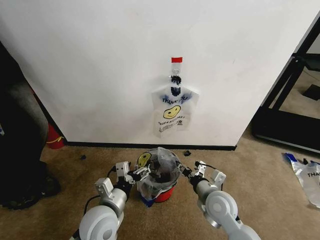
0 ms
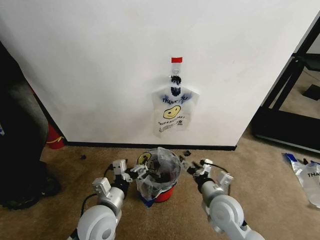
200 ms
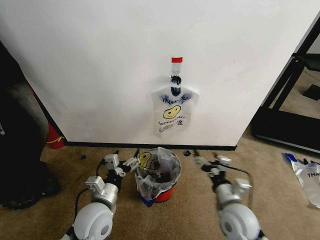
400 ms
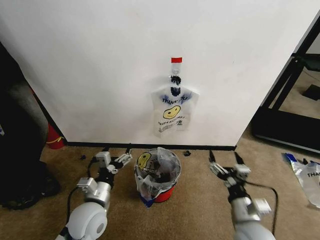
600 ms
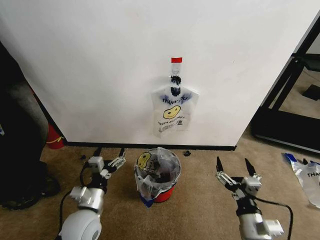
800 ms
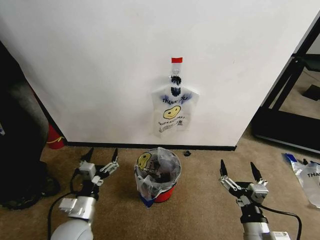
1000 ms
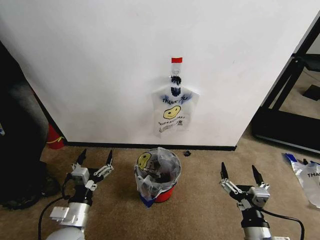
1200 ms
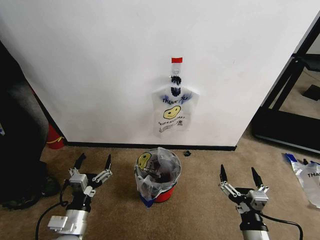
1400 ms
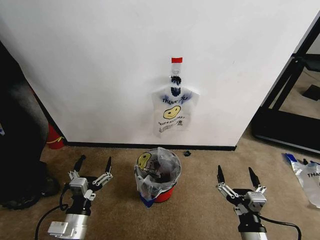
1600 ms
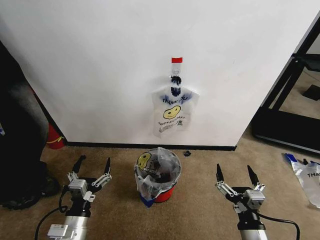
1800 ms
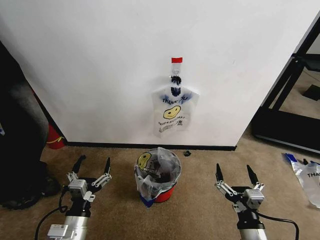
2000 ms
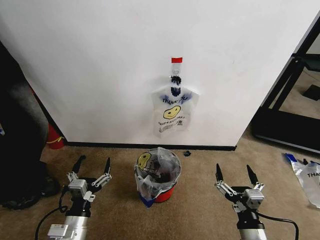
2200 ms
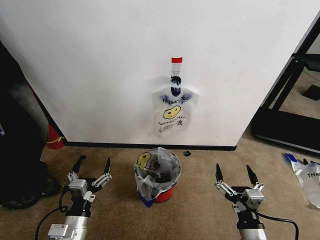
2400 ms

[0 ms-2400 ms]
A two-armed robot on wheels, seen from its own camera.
Task of the whole recording: Pick up the garbage bag from the wall and place it over the trash bin.
0 ms to 1200 ms: The left gripper shifts approximately 10 cm to the left. The right gripper travels backward by approximately 15 cm, and opens.
1200 ms to 2400 ms: The grippers make only small movements.

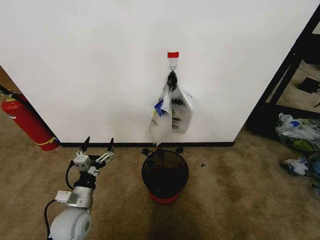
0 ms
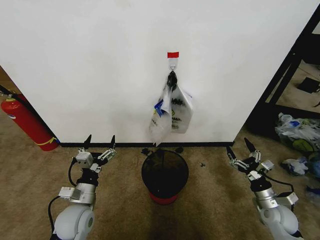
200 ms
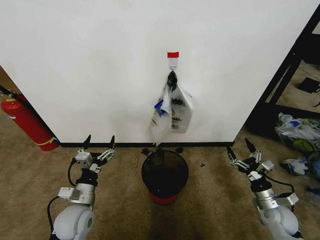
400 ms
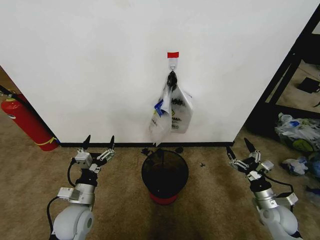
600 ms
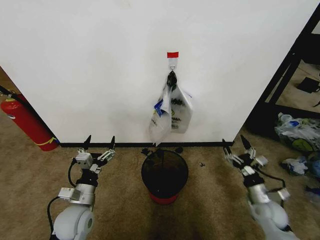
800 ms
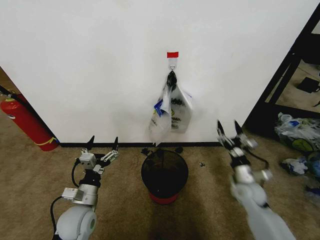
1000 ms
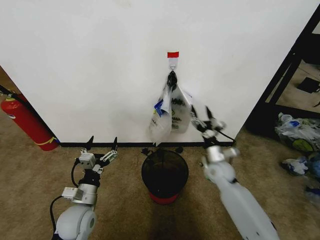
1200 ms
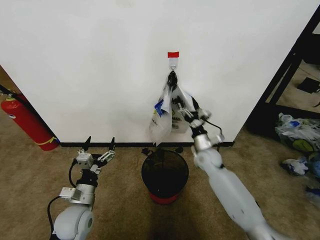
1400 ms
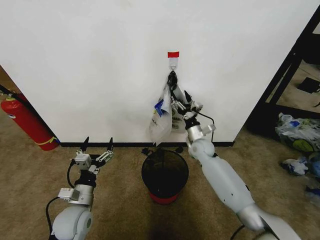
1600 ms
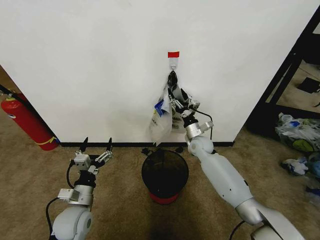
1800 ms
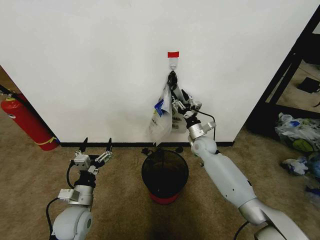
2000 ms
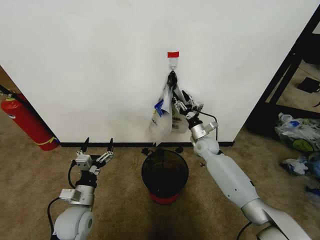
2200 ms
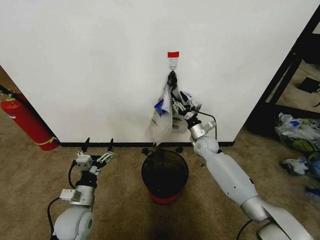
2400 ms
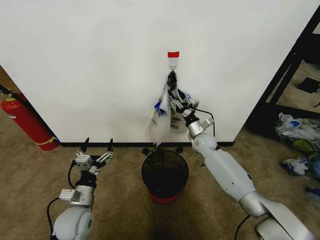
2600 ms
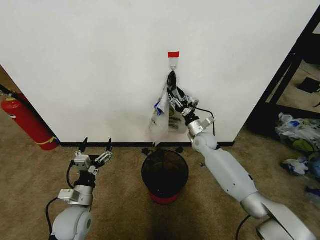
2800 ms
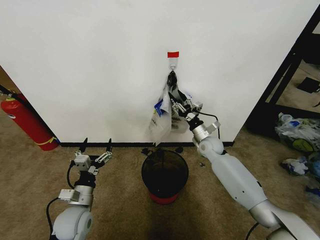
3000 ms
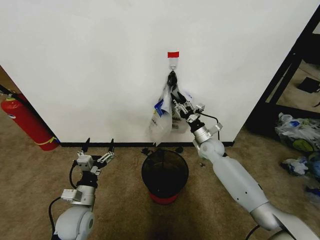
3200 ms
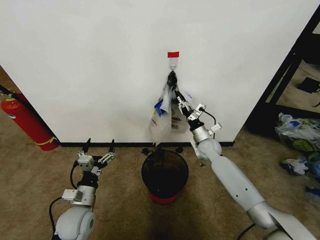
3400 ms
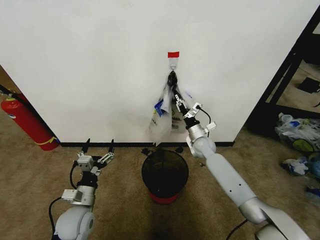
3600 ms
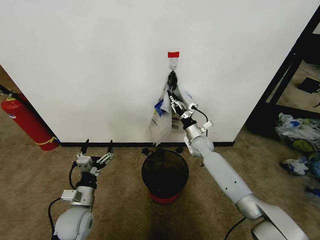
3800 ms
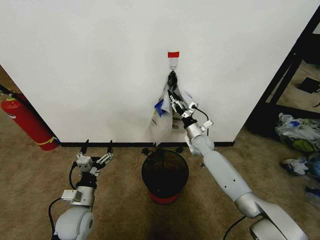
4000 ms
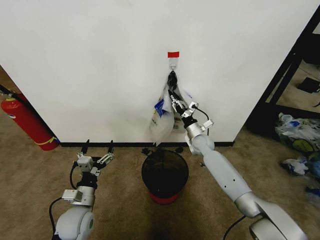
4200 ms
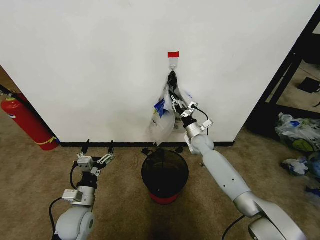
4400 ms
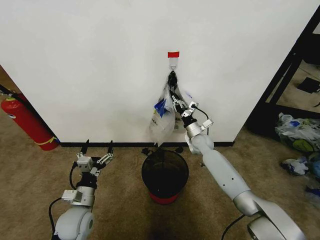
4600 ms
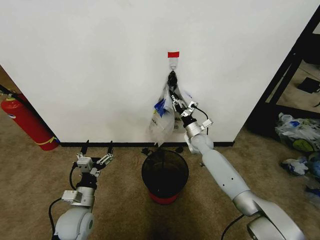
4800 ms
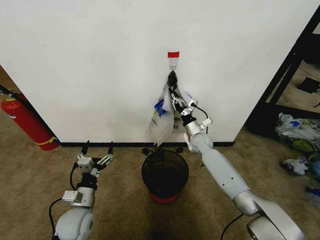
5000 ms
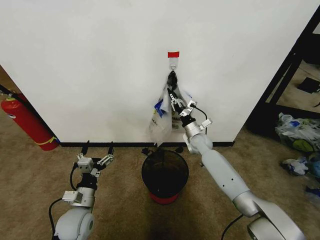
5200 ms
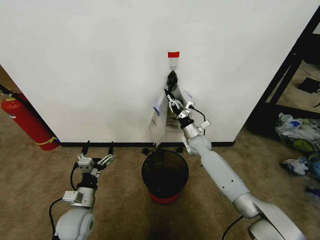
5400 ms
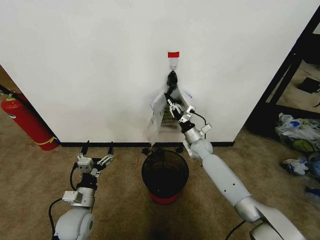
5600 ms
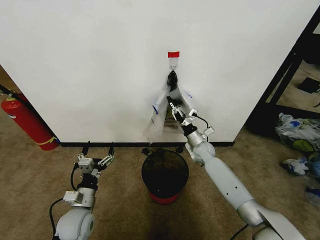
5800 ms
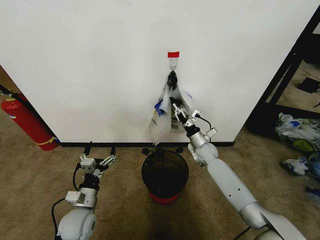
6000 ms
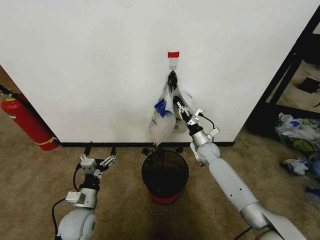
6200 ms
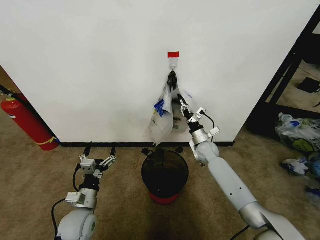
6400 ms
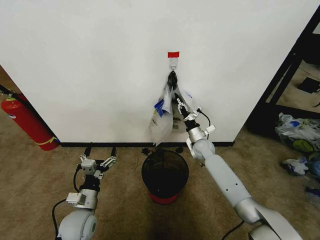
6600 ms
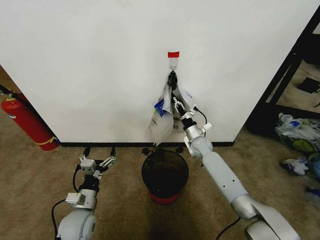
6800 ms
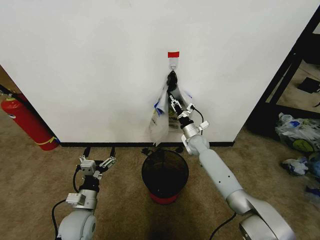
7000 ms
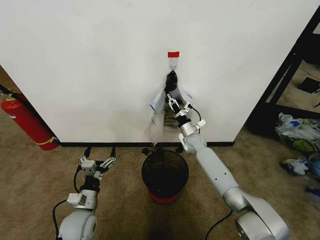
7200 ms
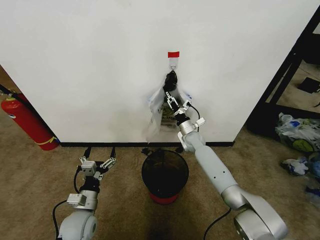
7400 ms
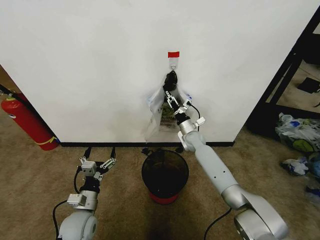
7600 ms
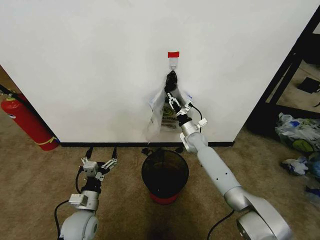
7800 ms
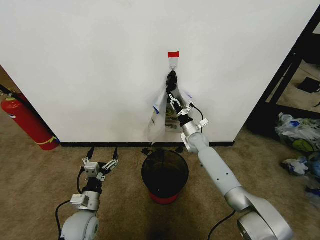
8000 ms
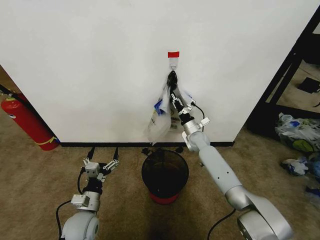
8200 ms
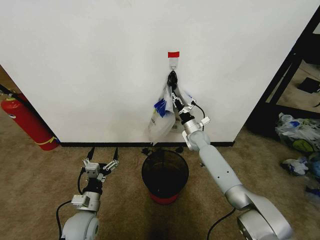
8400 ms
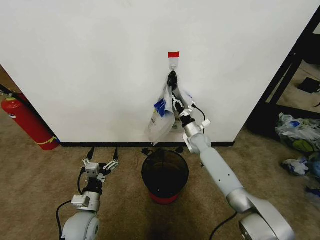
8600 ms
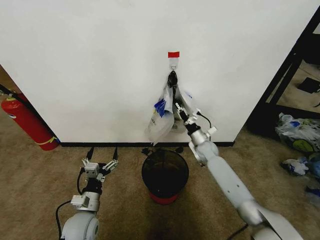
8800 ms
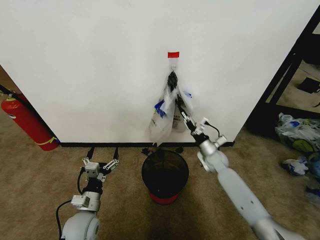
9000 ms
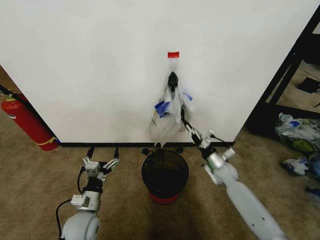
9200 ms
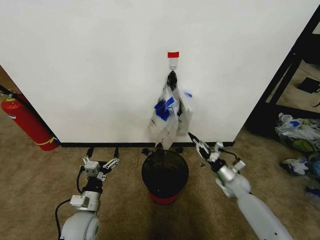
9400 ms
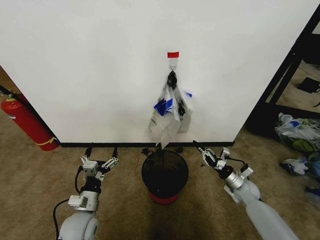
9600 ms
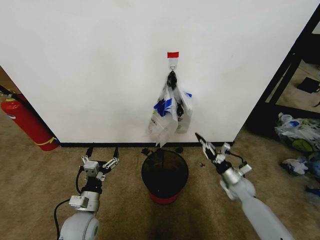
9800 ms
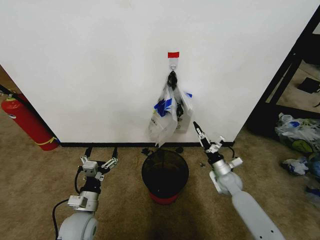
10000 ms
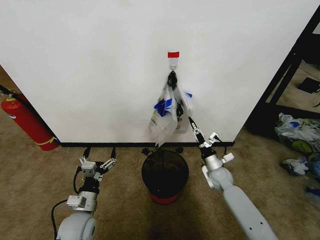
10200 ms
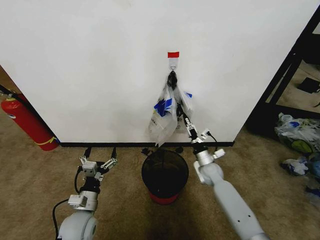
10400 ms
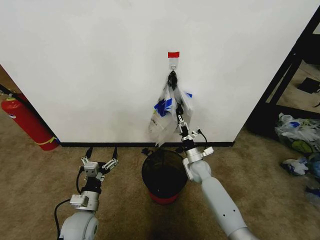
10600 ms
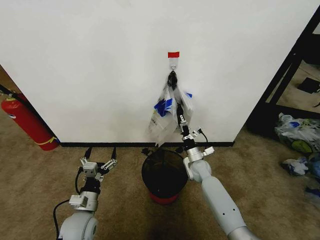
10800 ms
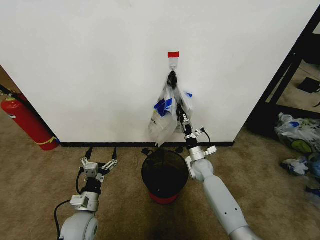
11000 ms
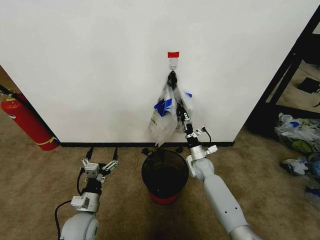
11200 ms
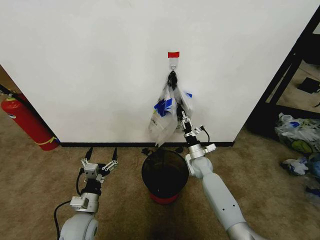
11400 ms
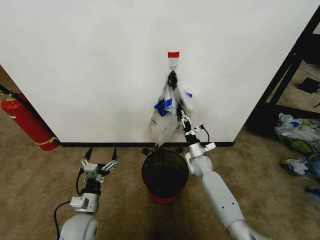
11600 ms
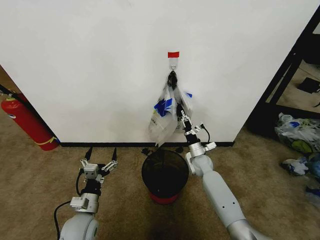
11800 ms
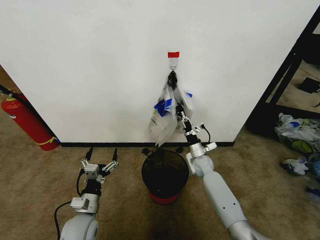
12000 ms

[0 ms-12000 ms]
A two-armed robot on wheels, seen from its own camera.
Task of the whole recording: Pick up the garbage bag from the wall and place it over the trash bin.
1600 ms to 3000 ms: There are only small adjustments of the grippers.
3000 ms to 4400 ms: The right gripper closes its fingers.
4400 ms to 6000 ms: The grippers move only a little.
6000 ms to 7600 ms: The right gripper moves about 5 cm.
7600 ms to 9000 ms: The right gripper goes approximately 10 cm to the right and backward, and closes.
9000 ms to 10400 ms: The right gripper reaches roughly 10 cm to the right, then returns, and opens up.
10400 ms to 12000 ms: The right gripper ends up approximately 5 cm from where it was, and closes.

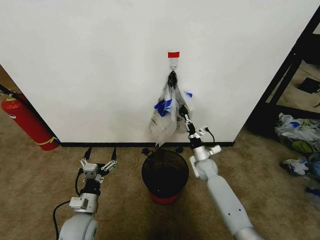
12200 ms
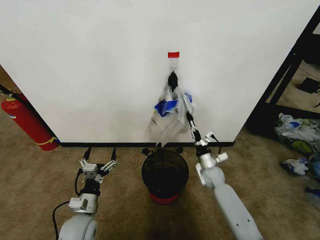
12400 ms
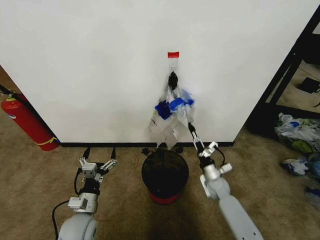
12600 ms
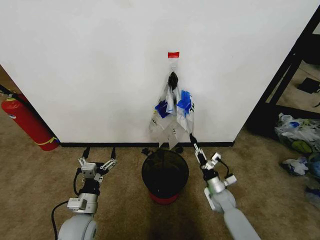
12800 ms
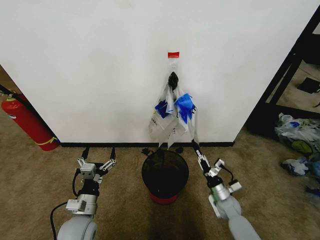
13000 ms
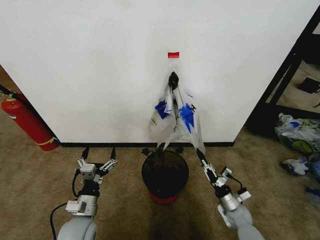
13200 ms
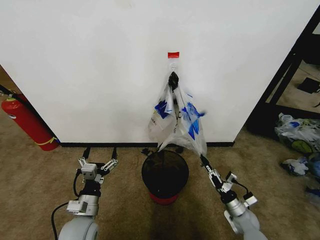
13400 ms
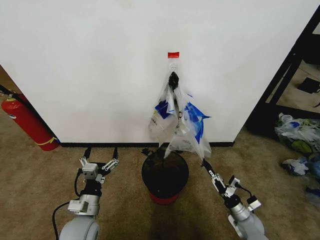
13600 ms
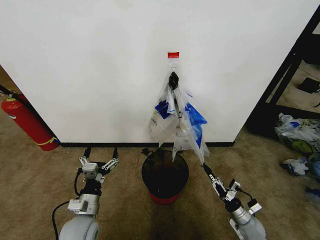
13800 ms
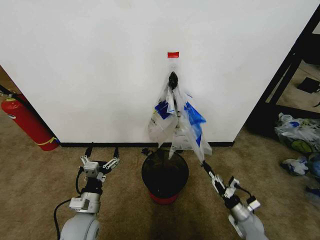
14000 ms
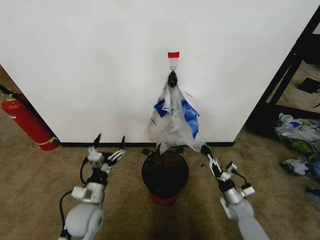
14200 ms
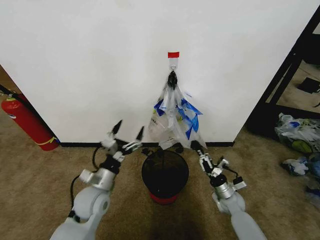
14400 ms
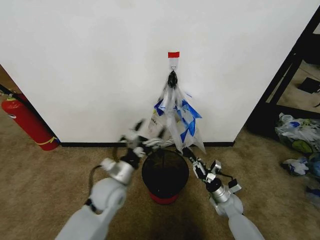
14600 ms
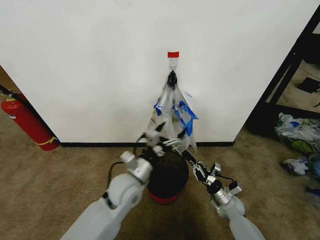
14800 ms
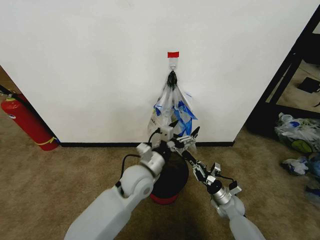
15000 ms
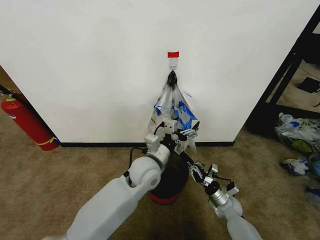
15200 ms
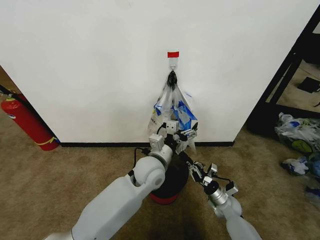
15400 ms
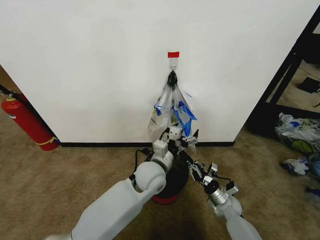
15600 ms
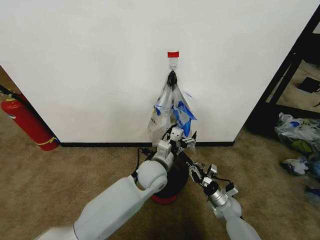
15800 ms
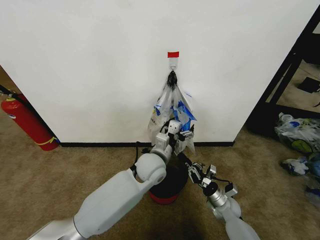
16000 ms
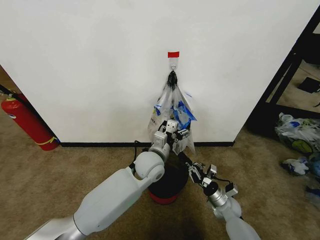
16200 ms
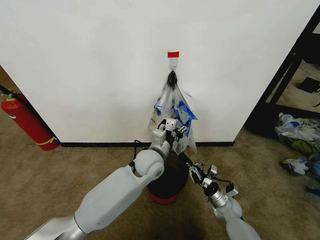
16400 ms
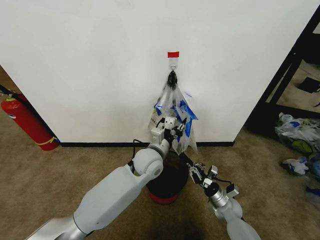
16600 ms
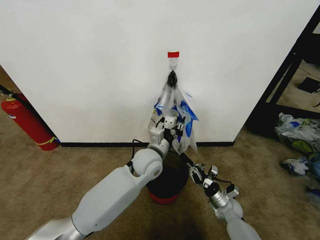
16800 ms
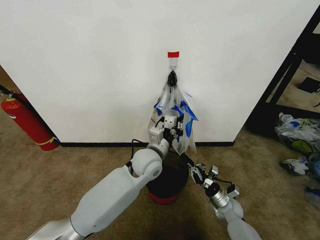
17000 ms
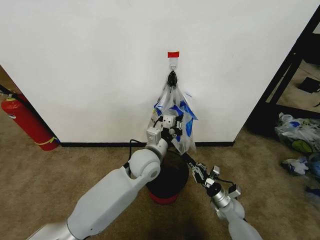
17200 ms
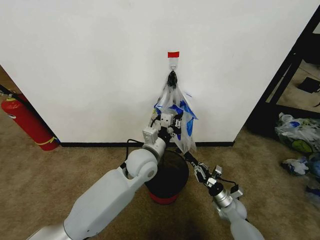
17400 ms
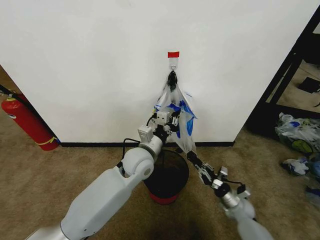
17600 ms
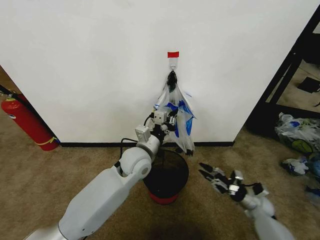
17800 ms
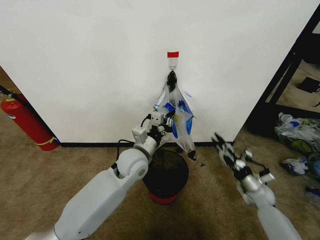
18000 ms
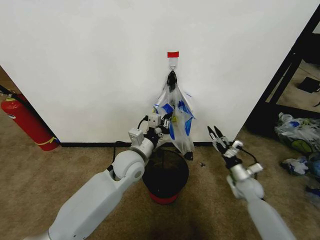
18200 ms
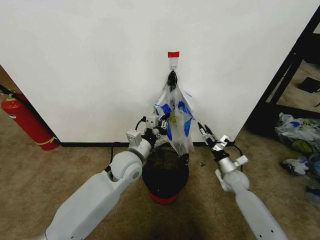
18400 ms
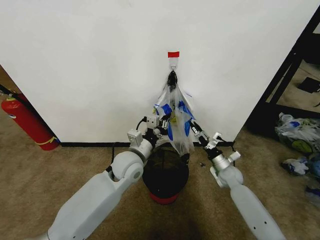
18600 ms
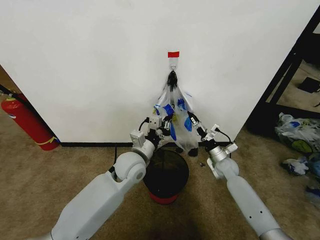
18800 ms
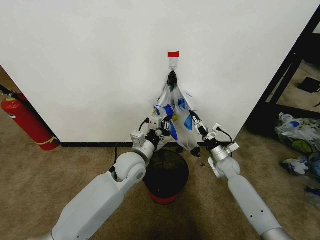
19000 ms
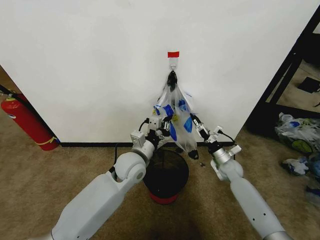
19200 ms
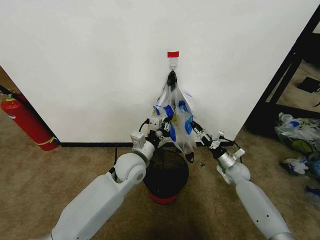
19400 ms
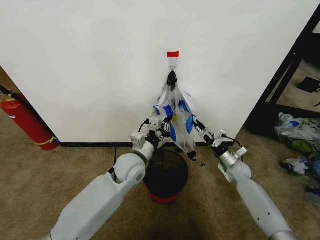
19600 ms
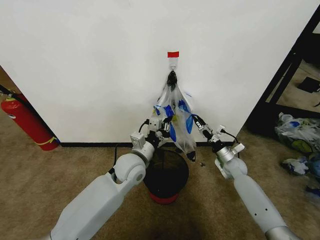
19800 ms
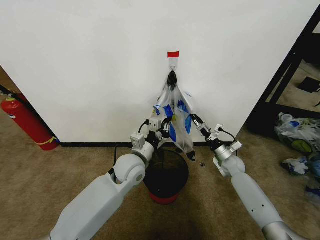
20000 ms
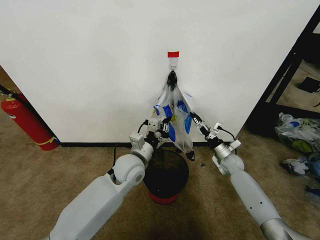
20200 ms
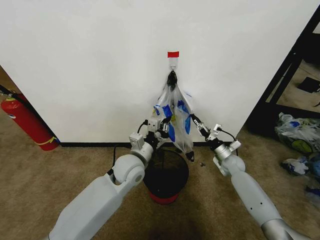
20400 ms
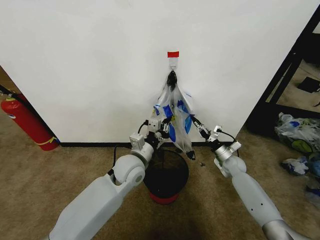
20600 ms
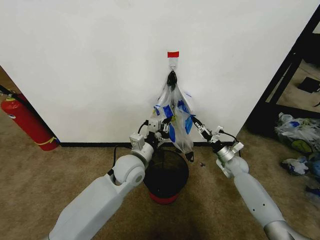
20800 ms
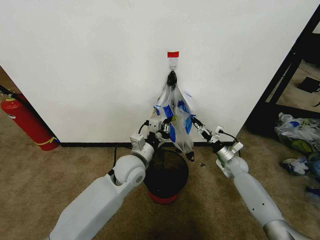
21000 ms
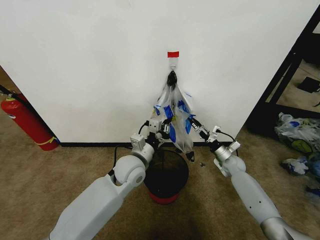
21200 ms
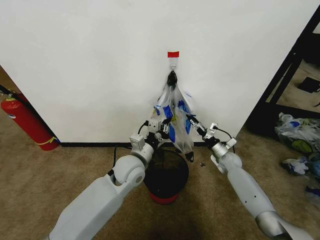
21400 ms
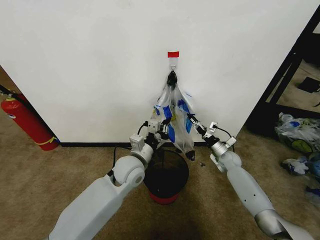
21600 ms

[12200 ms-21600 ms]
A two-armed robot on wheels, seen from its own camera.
Task of the whole recording: Pick up the garbage bag from the wall and place it over the trash bin.
12200 ms to 13800 ms: The right gripper heads backward, to the right and downward, covering about 30 cm.
13800 ms to 15400 ms: The left gripper heads to the right, forward and upward, covering roughly 25 cm. The right gripper shifts about 10 cm to the left and forward.
15400 ms to 17000 ms: The left gripper closes.
17000 ms to 18400 ms: The right gripper moves upward and forward, roughly 10 cm, reaches approximately 10 cm to the right, then returns, and opens its fingers. Meanwhile the left gripper goes about 5 cm to the left.
18400 ms to 20000 ms: The right gripper travels forward by approximately 5 cm, and closes, then opens again.
20000 ms to 21600 ms: The right gripper closes.
